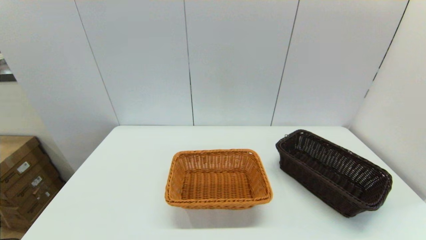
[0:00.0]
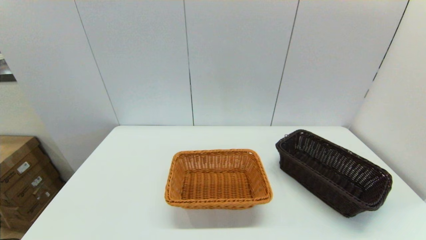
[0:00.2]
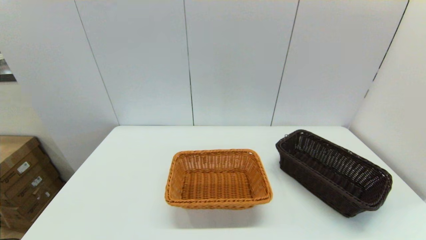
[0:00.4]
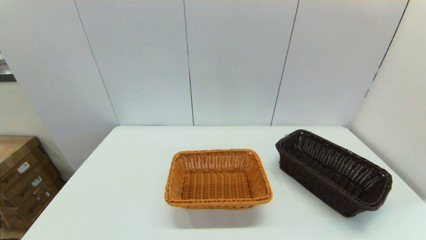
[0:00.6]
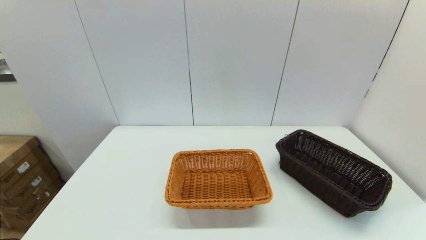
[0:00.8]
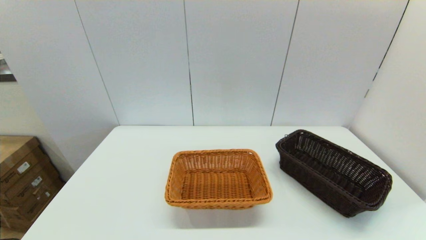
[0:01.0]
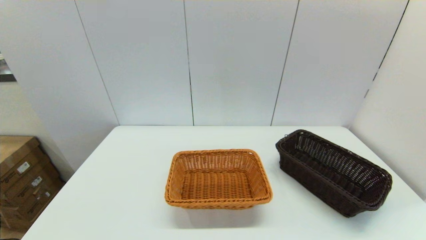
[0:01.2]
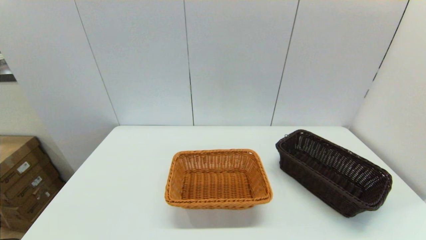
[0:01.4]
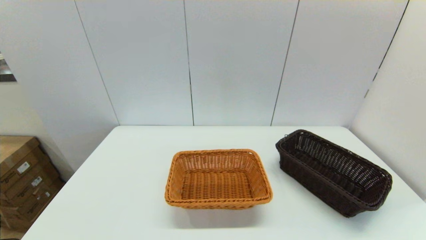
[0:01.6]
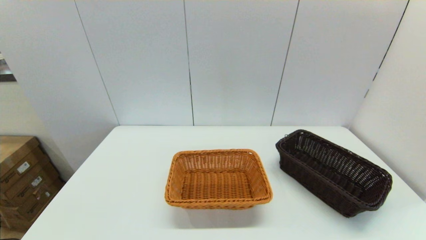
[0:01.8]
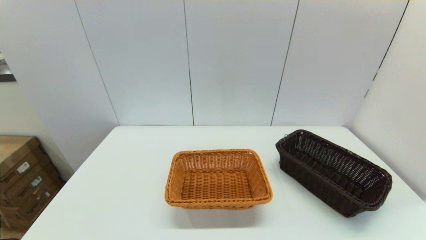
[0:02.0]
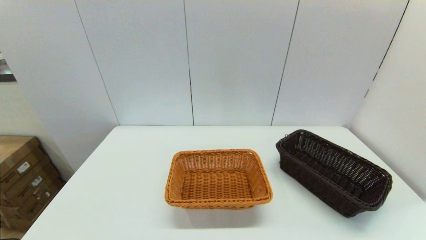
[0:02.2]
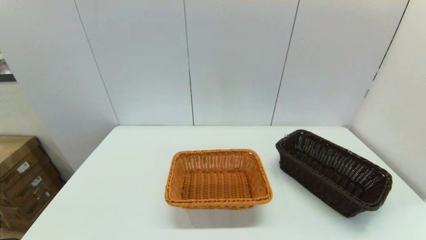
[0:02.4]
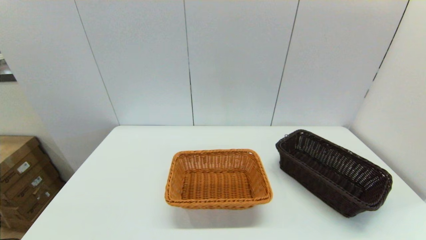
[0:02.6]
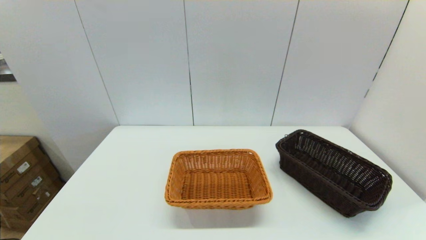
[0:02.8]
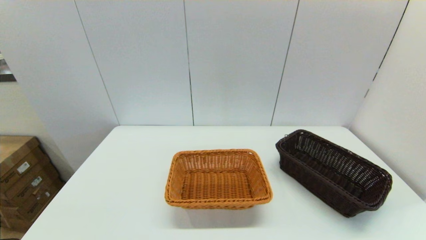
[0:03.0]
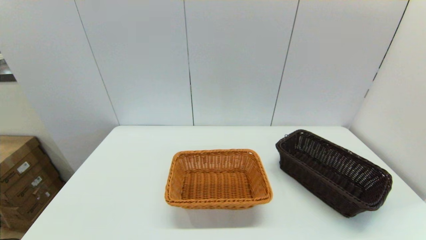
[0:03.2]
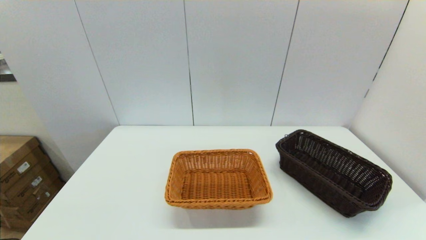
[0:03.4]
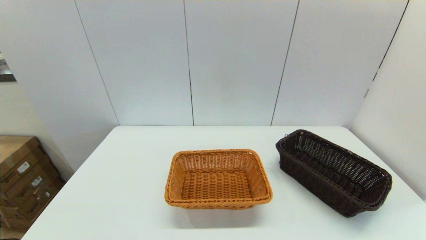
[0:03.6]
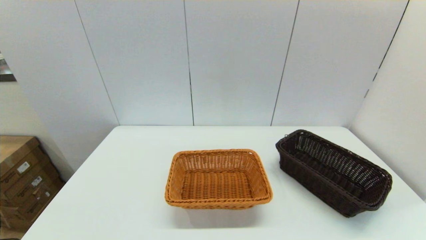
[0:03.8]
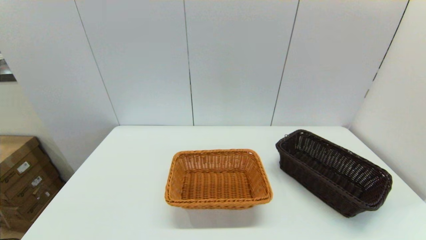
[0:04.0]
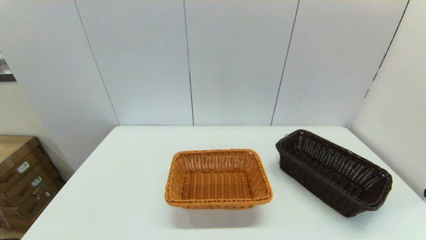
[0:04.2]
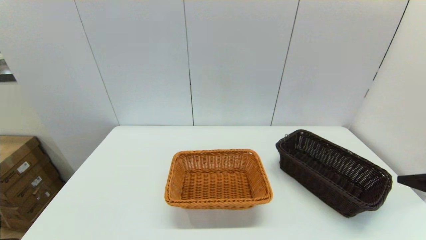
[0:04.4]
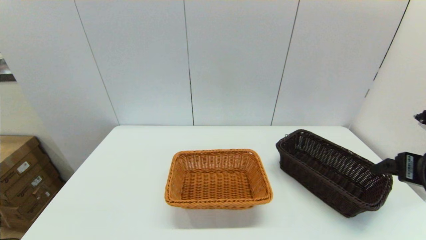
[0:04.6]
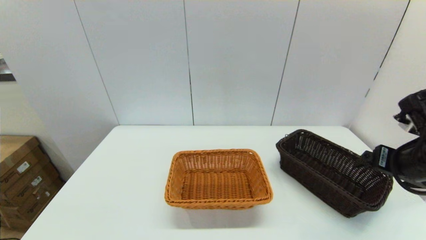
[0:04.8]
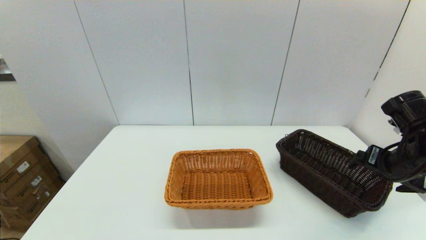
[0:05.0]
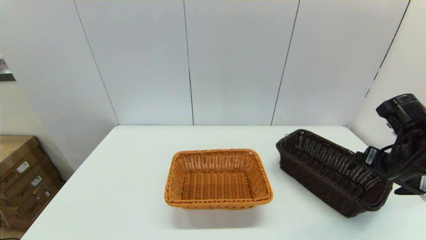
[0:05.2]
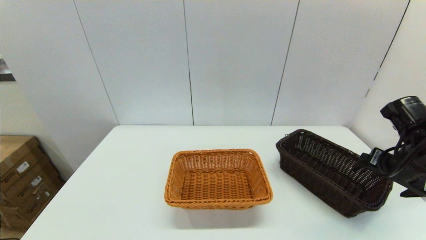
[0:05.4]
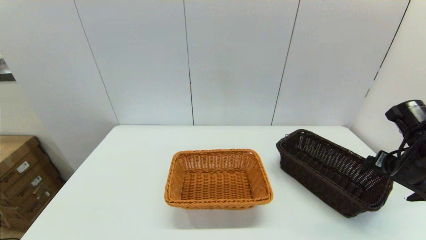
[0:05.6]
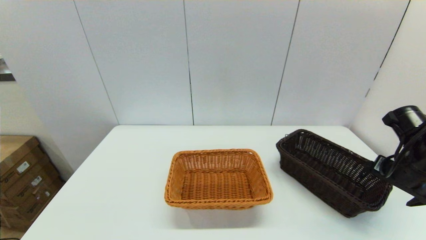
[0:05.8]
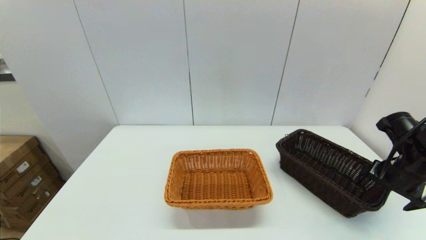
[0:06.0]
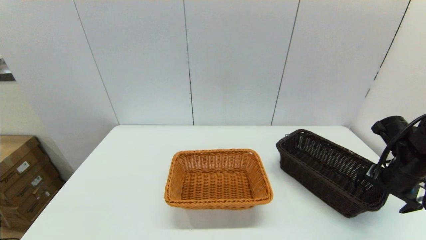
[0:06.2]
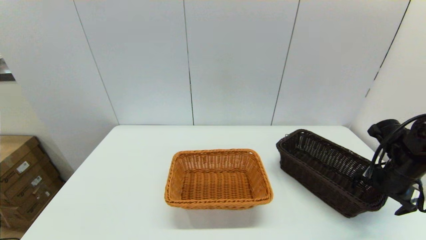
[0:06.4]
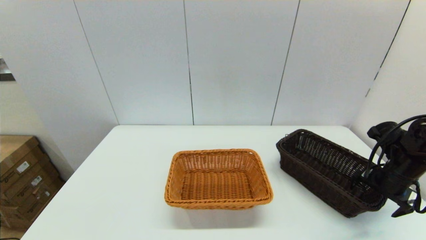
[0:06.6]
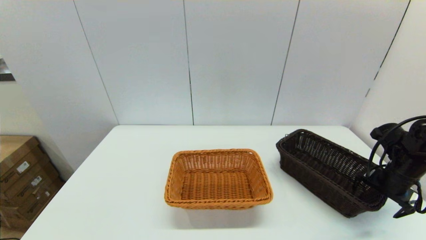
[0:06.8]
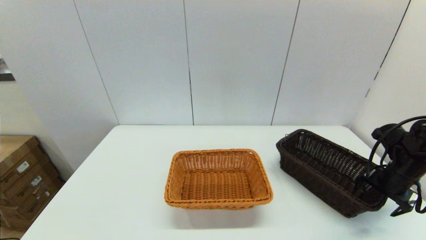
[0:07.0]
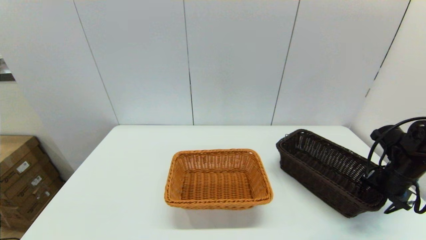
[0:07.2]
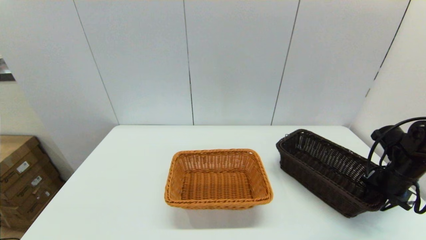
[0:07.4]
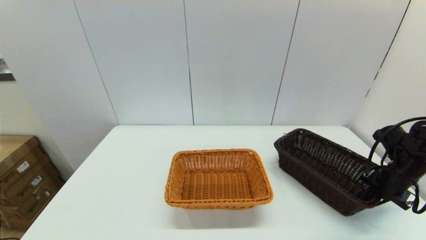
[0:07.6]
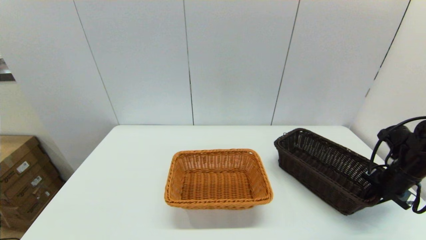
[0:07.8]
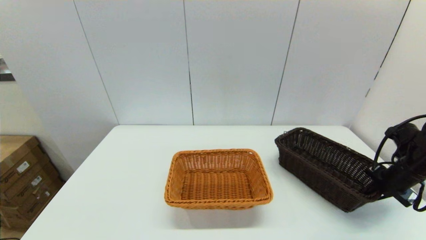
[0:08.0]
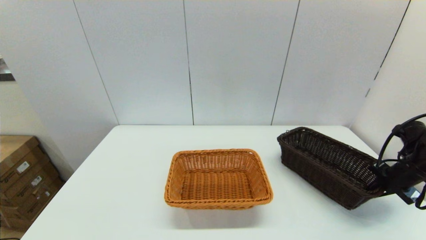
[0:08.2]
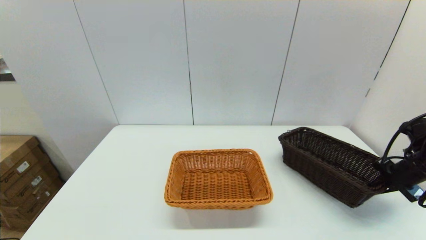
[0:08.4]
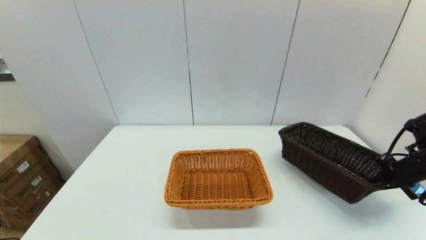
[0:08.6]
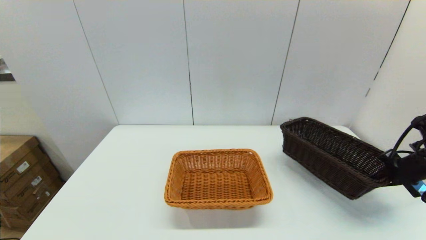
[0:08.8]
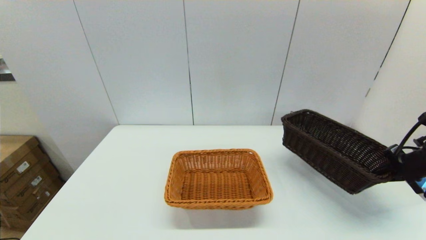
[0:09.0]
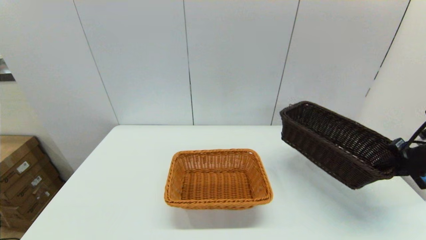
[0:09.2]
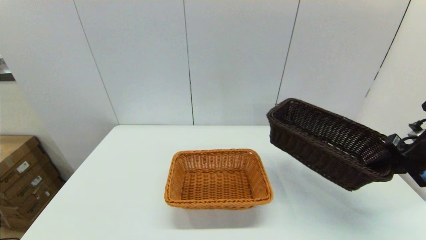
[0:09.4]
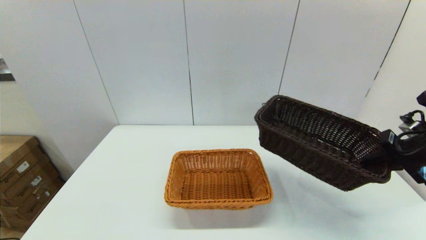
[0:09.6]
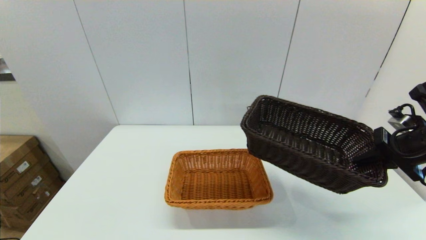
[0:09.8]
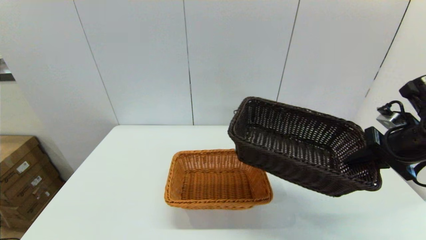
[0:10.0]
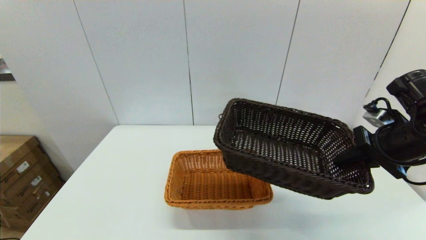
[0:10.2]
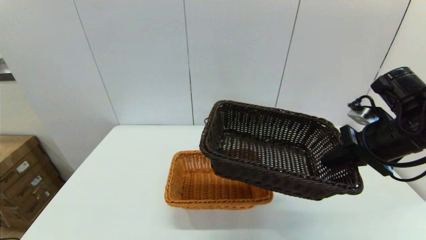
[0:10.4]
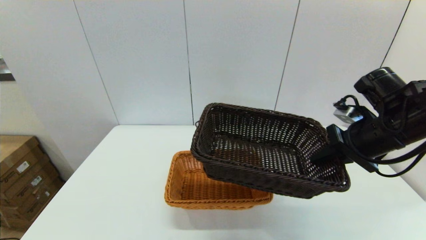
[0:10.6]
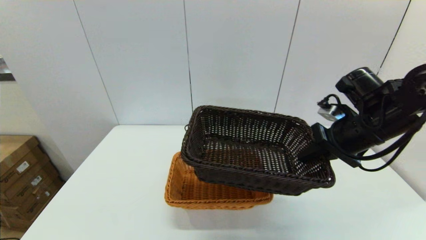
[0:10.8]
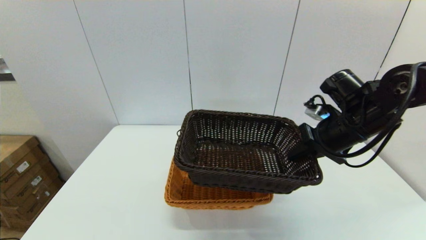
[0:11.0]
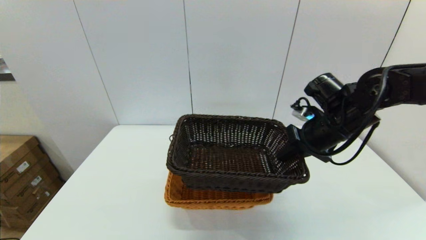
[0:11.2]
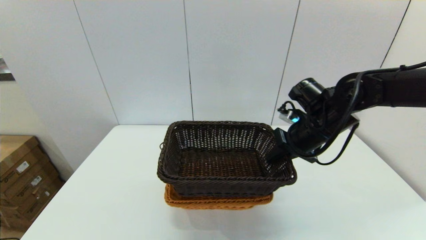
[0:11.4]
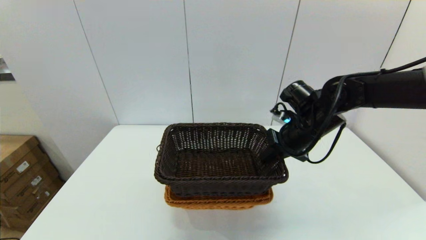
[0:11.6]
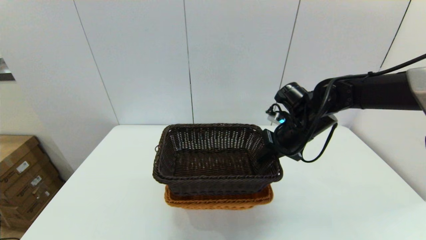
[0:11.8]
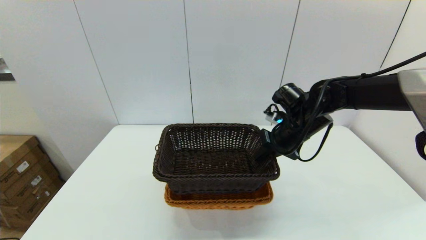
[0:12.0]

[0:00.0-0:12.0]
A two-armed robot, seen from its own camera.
Task of the whole recording: stack a basket on top of another basket.
Step, 0:00.0 to 0:08.0: Grasp the dark basket with the right gripper.
0:04.4 to 0:06.0: The right gripper shifts approximately 15 cm forward and downward.
0:06.0 to 0:07.6: The right gripper ends up roughly 5 cm from where it was, and closes.
0:07.6 to 0:09.0: The right gripper heads upward, covering about 5 cm.
0:09.0 to 0:10.4: The right gripper travels to the left and upward by approximately 15 cm.
0:10.4 to 0:12.0: The right gripper is displaced forward, to the left and downward by some 15 cm.

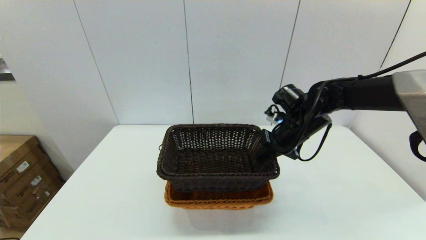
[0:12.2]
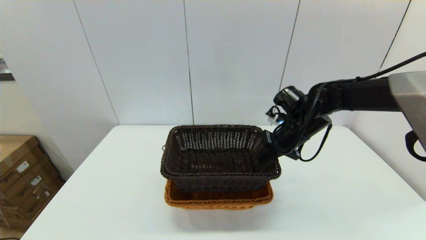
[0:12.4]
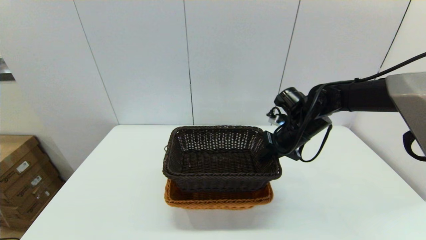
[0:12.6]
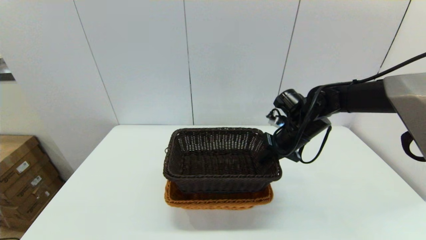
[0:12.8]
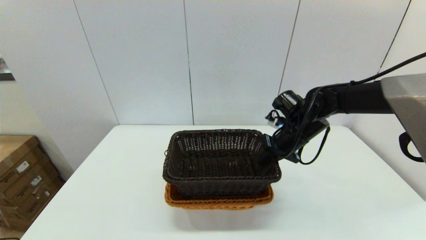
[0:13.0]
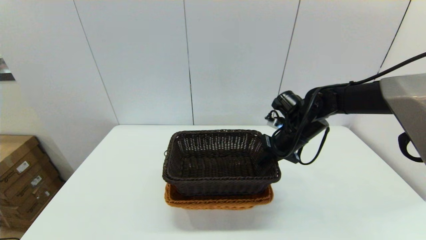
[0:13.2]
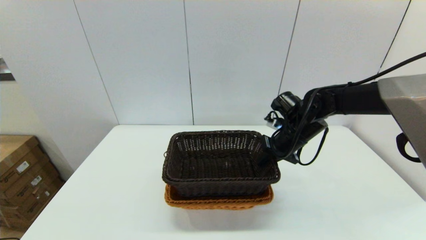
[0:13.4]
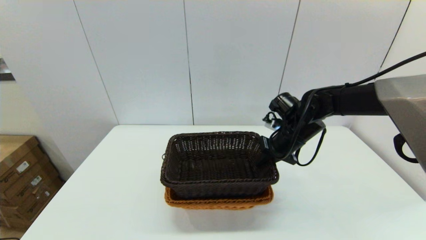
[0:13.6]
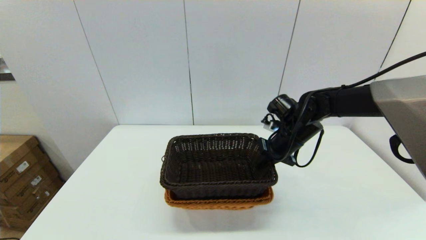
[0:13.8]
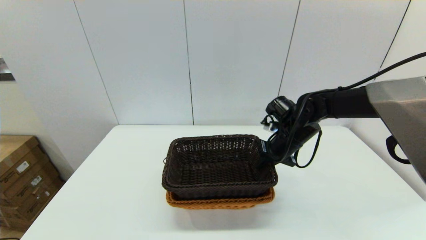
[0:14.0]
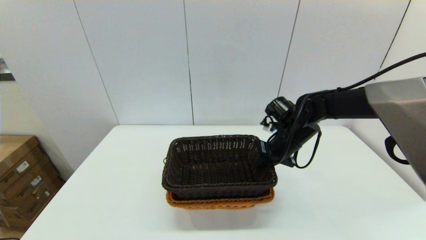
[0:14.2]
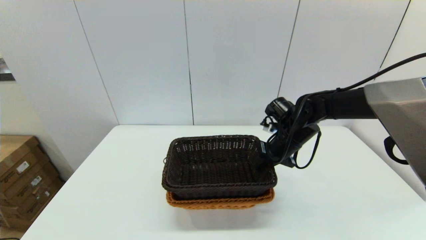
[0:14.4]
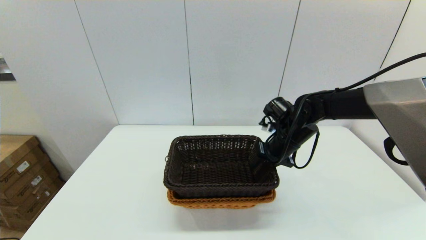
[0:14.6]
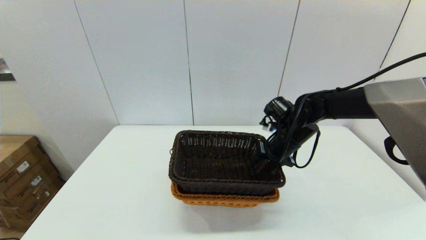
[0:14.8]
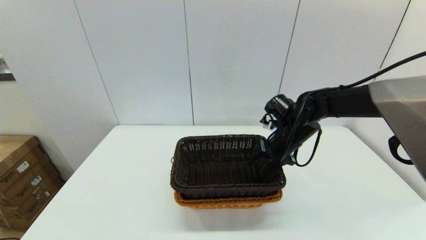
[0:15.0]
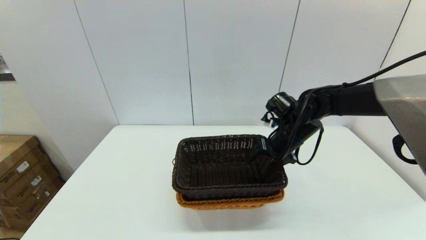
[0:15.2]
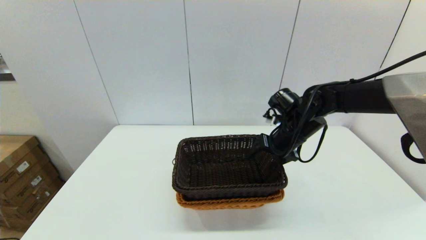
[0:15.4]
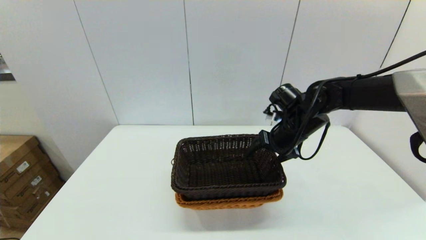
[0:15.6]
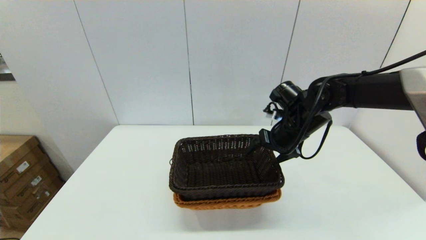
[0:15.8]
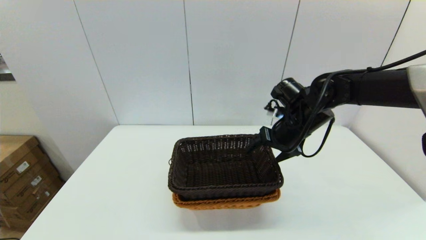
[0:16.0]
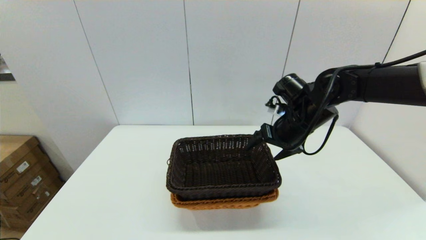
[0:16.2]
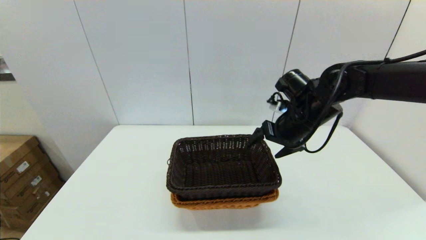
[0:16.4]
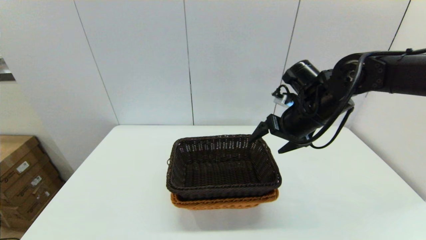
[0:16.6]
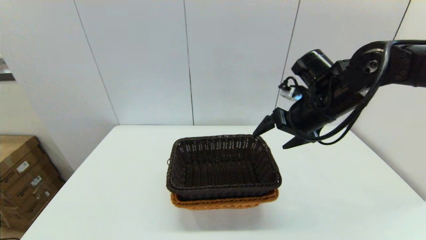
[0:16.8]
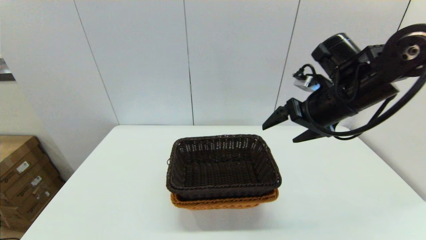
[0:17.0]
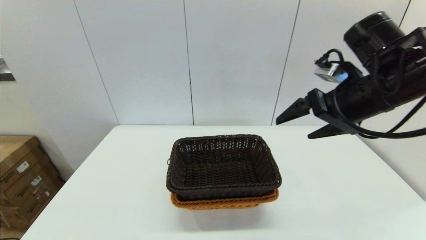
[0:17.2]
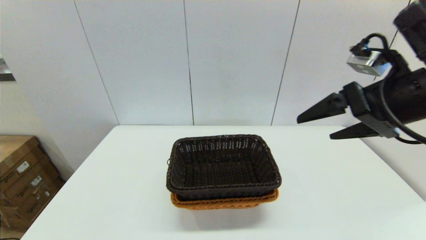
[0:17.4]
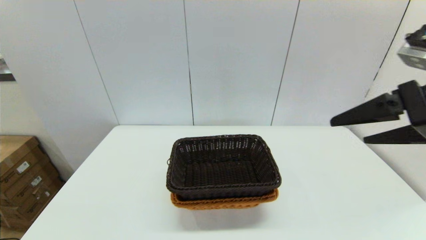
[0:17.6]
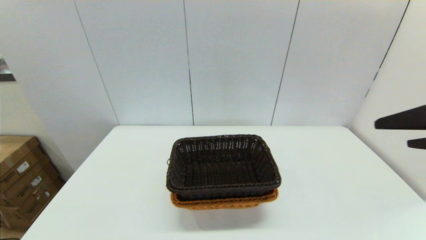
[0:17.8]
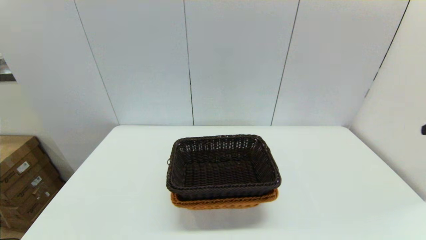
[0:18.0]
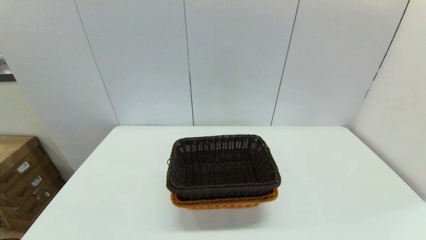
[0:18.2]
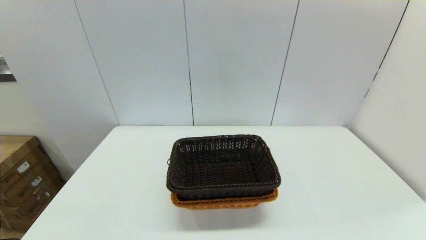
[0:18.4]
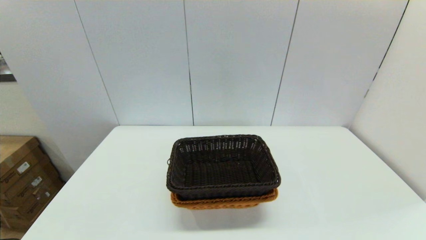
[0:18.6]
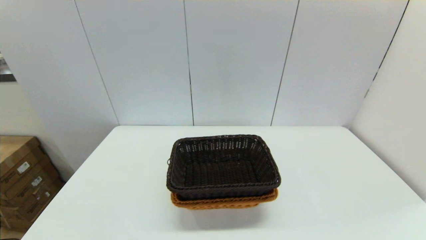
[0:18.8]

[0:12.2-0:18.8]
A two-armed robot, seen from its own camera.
Task of the whole recording: stack a basket on top of another basket.
Step, 0:12.2 to 0:16.0: Place the dark basket into the light color basket with the right gripper.
0:12.2 to 0:13.8: The grippers move only a little.
0:13.8 to 0:15.4: The right gripper opens up.
0:15.4 to 0:17.2: The right gripper shifts approximately 20 cm upward and backward.
0:17.2 to 0:18.8: The right gripper goes approximately 30 cm backward.
